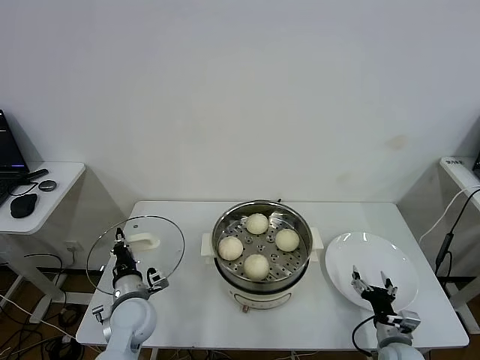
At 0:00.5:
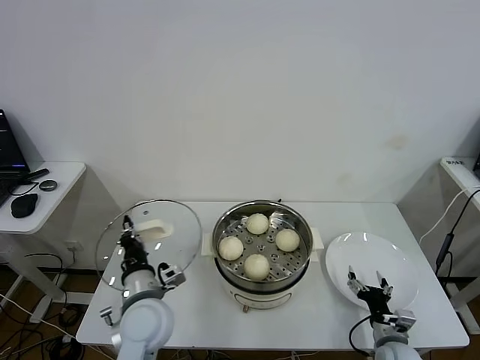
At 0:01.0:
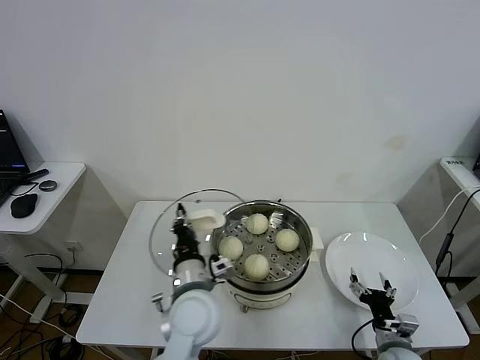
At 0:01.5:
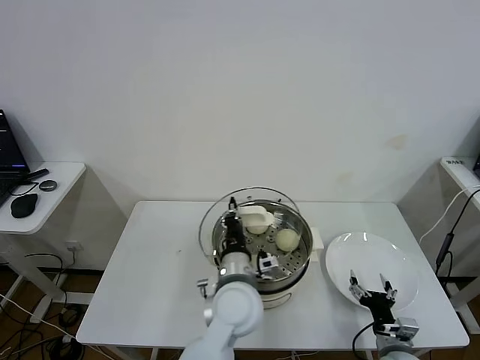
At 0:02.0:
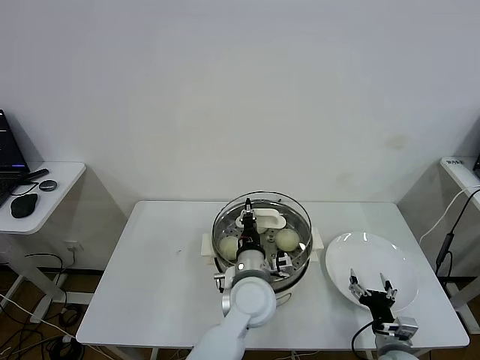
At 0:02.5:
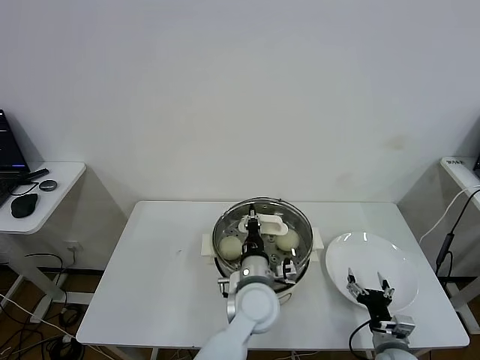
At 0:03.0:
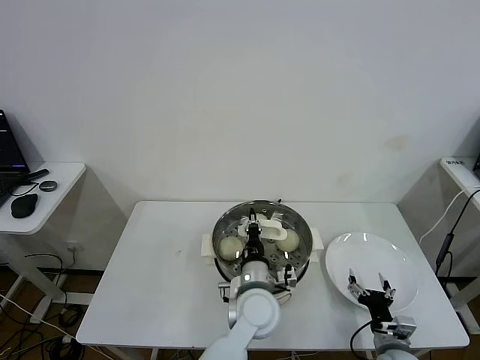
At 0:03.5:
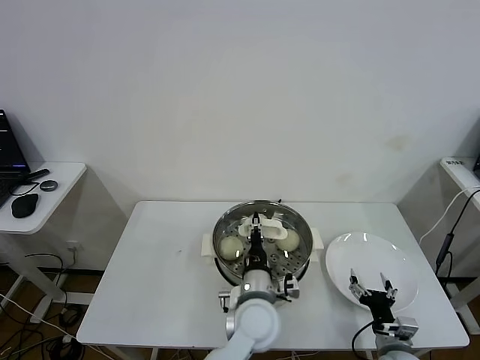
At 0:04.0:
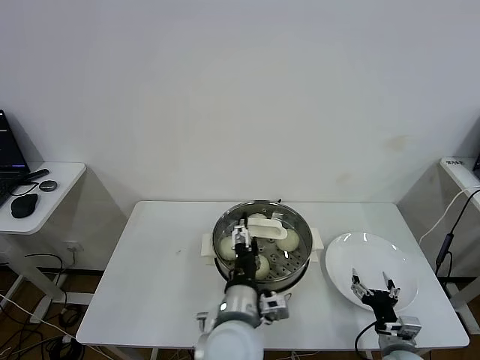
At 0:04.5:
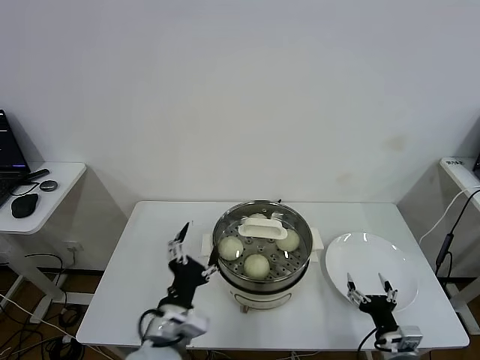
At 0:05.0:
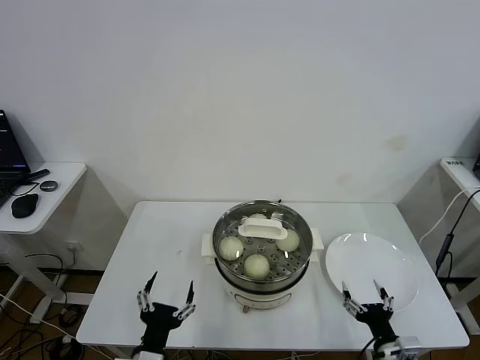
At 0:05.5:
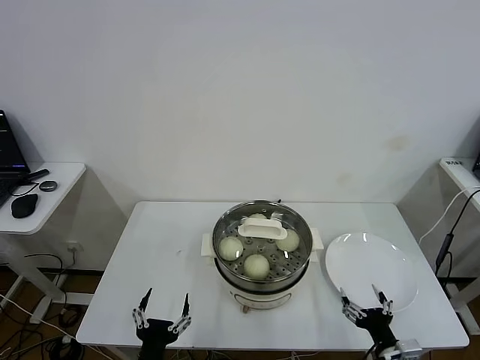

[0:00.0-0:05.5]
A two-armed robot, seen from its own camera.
Task of the whole recording: take steamed baozi put them in steamer.
Step, 0:00.0 to 0:04.0: Place the pot lid on the steamer with left gripper.
0:00.0 to 0:02.0: The left gripper is displaced to the right by approximately 25 cm.
0:02.0 to 0:03.5: The grippers move only a little.
0:03.5 to 0:05.5: The right gripper goes roughly 5 cm backward; the left gripper moves to the left and backward, approximately 30 cm, and opens its fingers.

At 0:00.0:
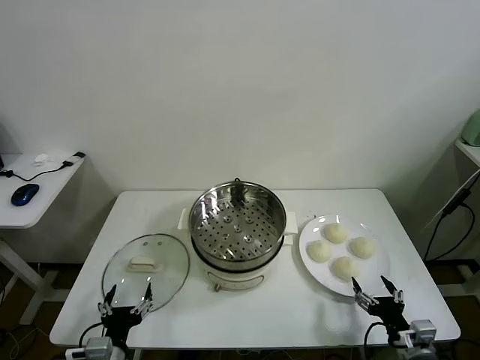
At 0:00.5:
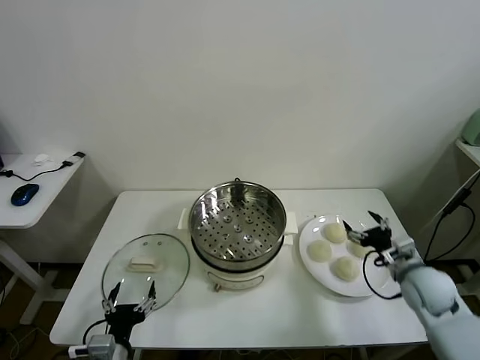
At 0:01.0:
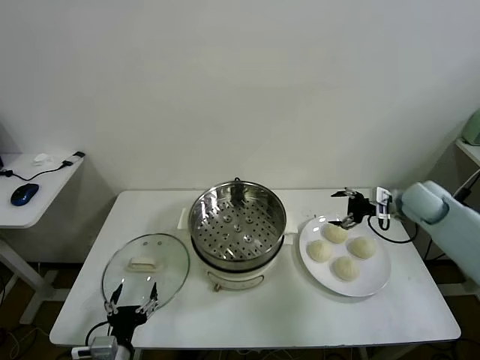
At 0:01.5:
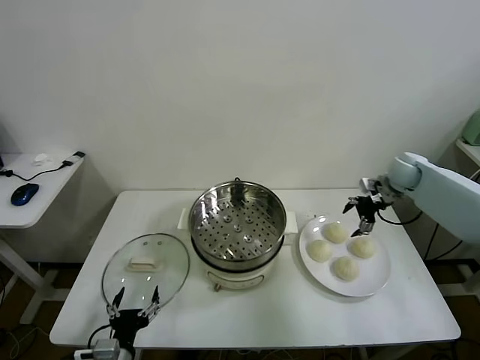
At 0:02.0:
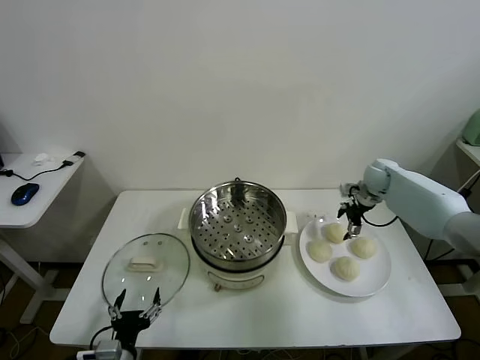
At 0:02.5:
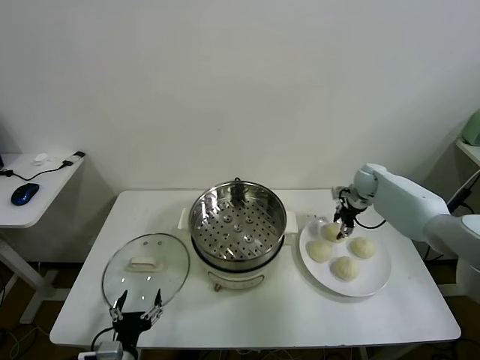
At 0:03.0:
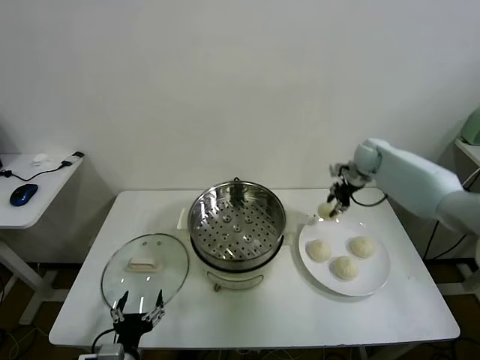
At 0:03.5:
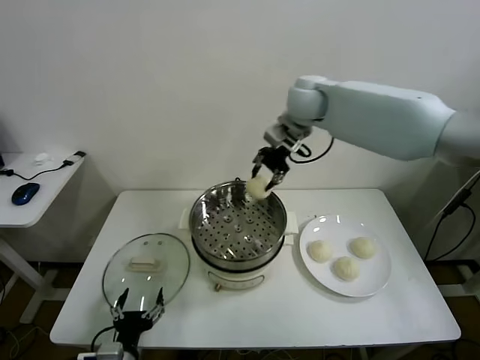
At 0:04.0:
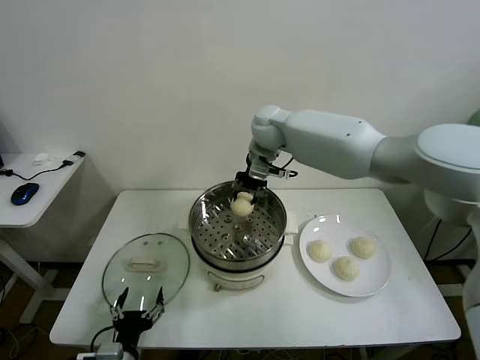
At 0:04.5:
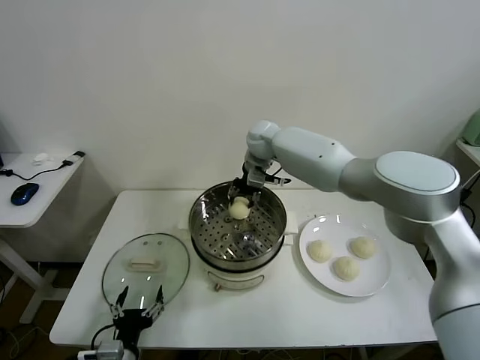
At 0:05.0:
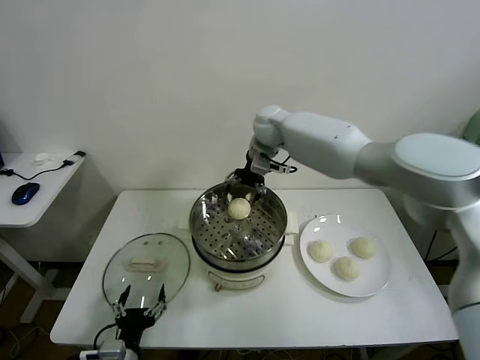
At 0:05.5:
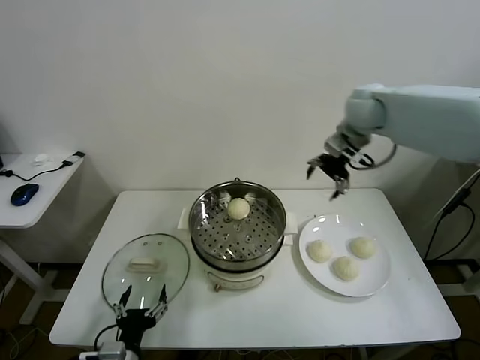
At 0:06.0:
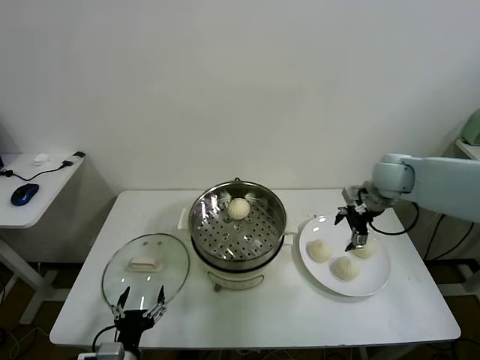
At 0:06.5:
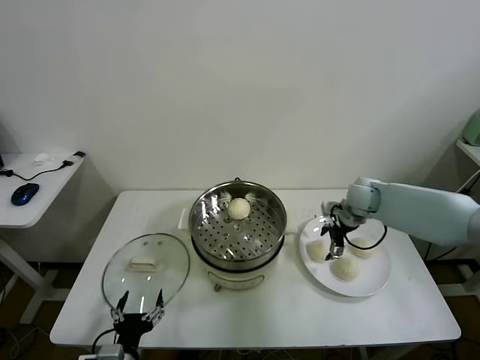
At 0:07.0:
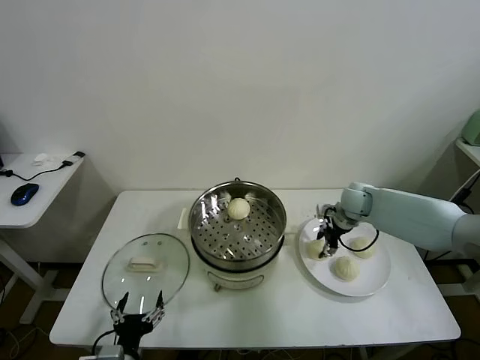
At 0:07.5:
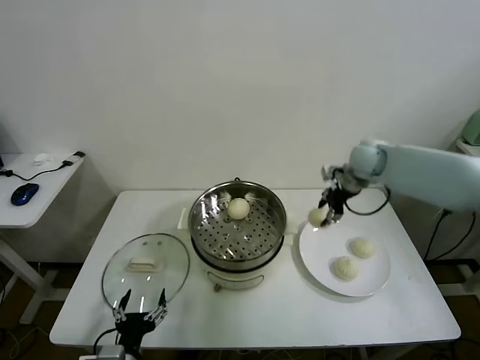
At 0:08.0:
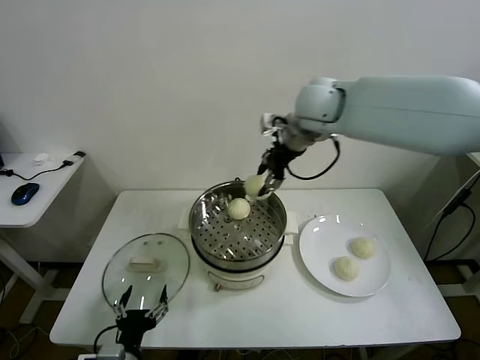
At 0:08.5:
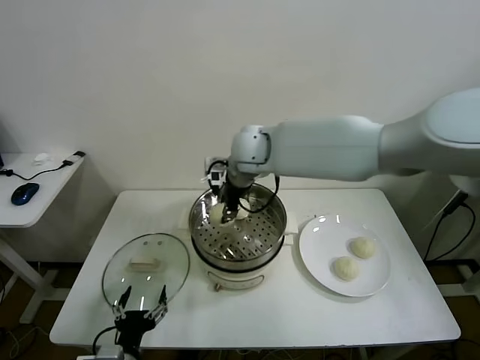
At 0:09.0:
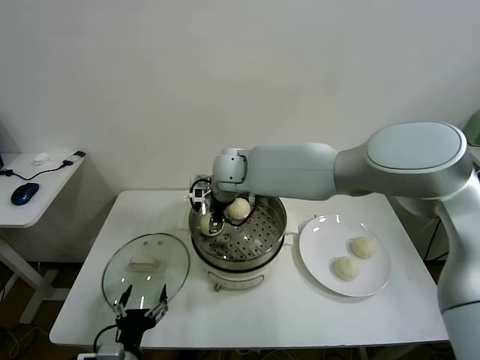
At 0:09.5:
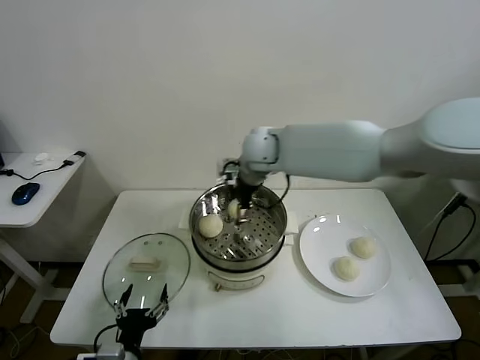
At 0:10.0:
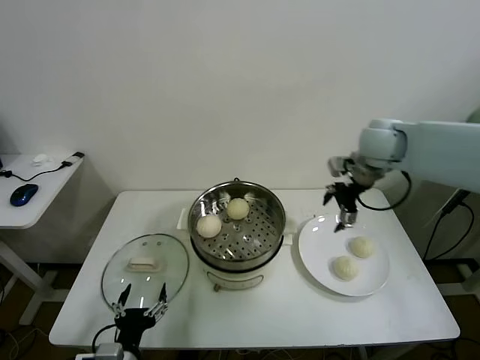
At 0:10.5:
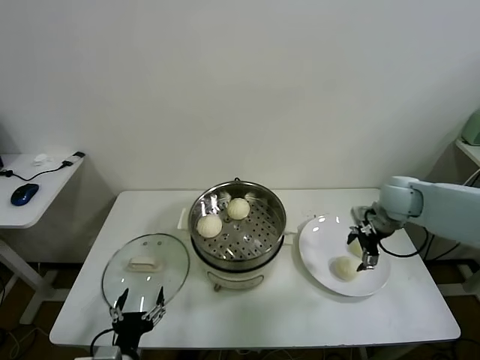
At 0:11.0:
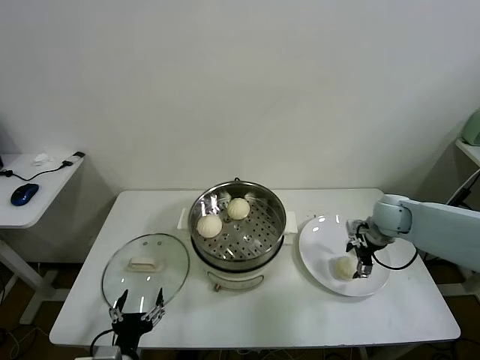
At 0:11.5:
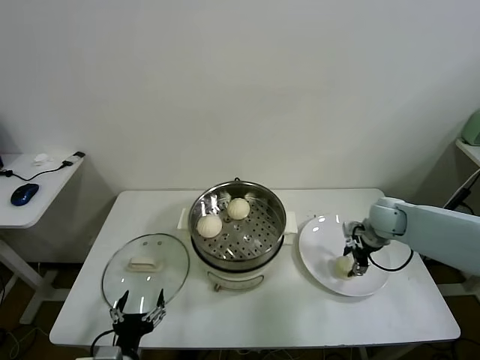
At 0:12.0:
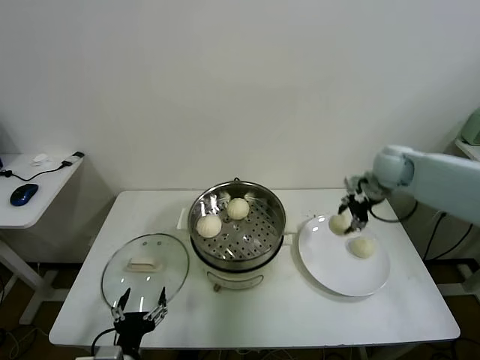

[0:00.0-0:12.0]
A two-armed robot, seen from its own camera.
Task of the whole recording: take steamed baozi put them in steamer.
Step, 0:00.0 to 0:02.5: Grasp the baozi in the plate with right gripper.
Step, 0:03.0 to 0:04.5: Place the baozi on the steamer with right gripper.
Step, 0:05.0 to 0:07.0: Grasp the baozi in the plate with right gripper.
Step, 0:07.5 to 0:09.0: Place the baozi on the steamer with right gripper.
Step, 0:09.5 to 0:11.5: Grasp the baozi in the plate with right gripper.
0:02.0 to 0:04.0: The right gripper travels to the left and upward by some 35 cm, and closes up.
0:04.0 to 0:06.0: The right gripper moves to the right, roughly 30 cm, and opens its fingers.
0:06.0 to 0:08.0: The right gripper goes approximately 30 cm to the left and upward, and closes its fingers.
0:08.0 to 0:10.0: The right gripper moves to the right and downward, roughly 20 cm, and opens its fingers.
0:10.0 to 0:12.0: The right gripper reaches approximately 20 cm downward, then returns, and closes its fingers.

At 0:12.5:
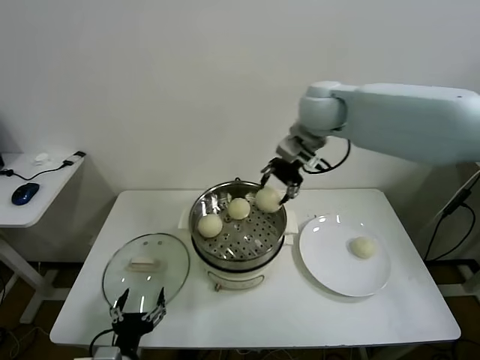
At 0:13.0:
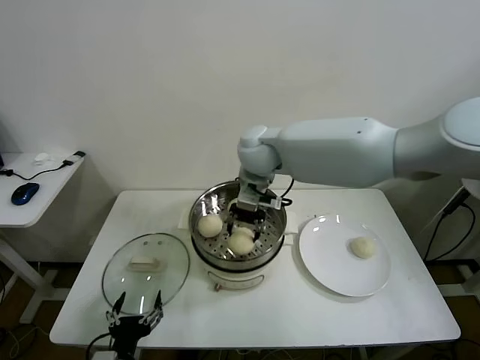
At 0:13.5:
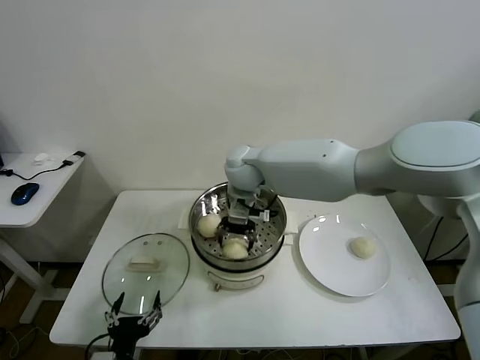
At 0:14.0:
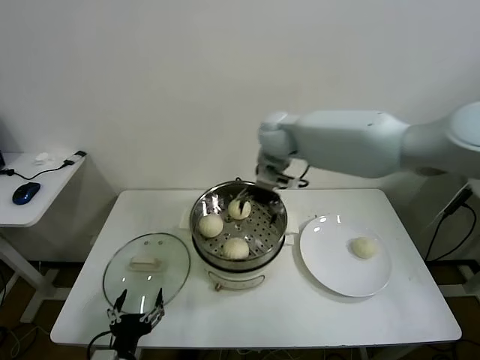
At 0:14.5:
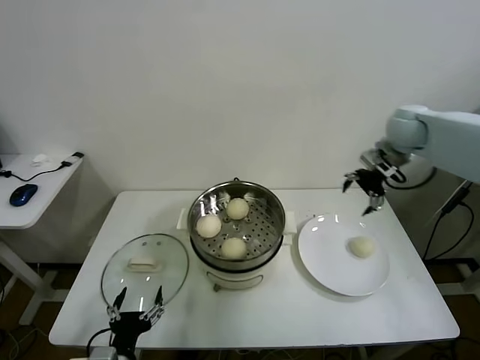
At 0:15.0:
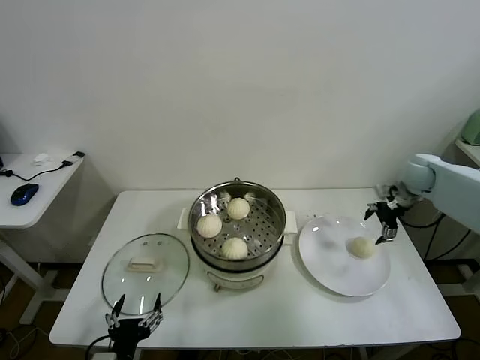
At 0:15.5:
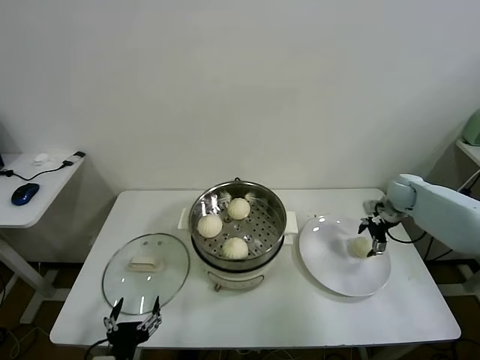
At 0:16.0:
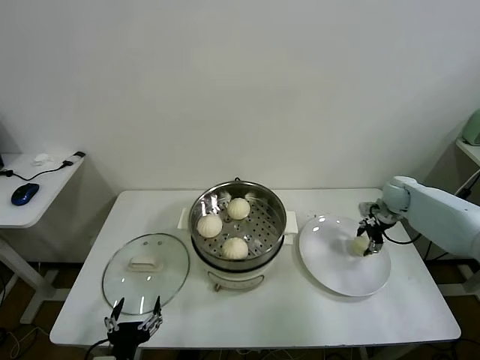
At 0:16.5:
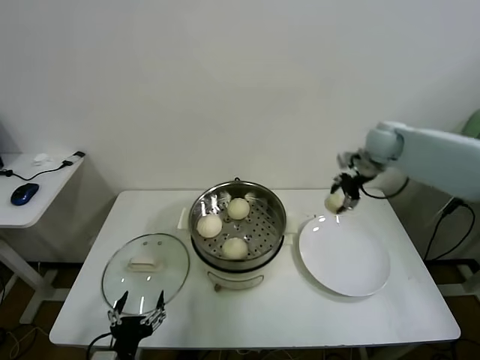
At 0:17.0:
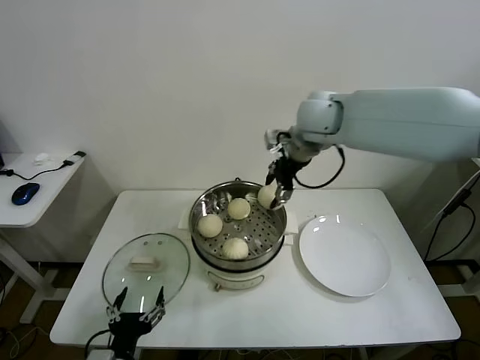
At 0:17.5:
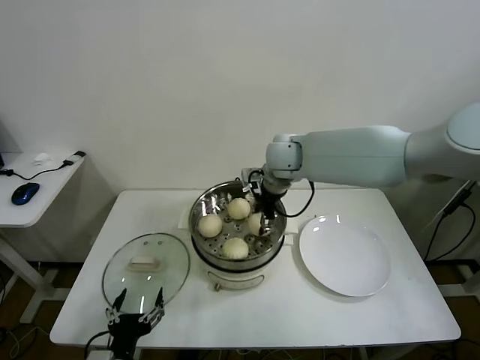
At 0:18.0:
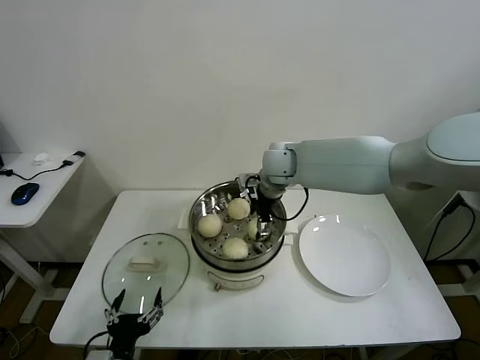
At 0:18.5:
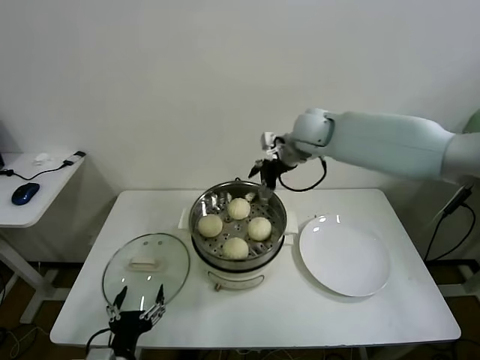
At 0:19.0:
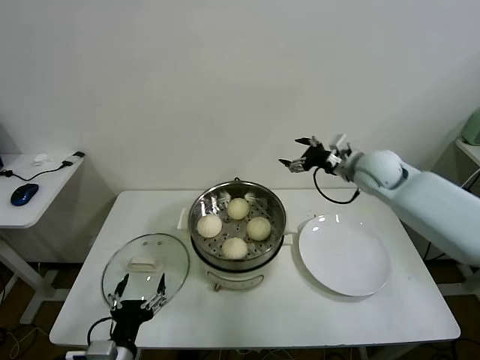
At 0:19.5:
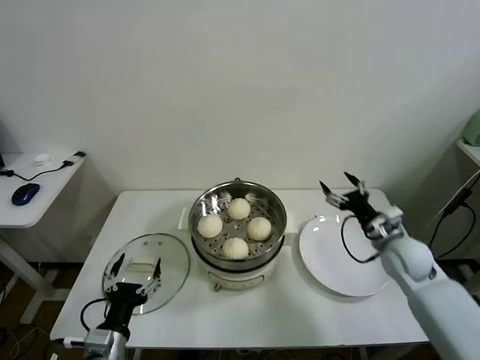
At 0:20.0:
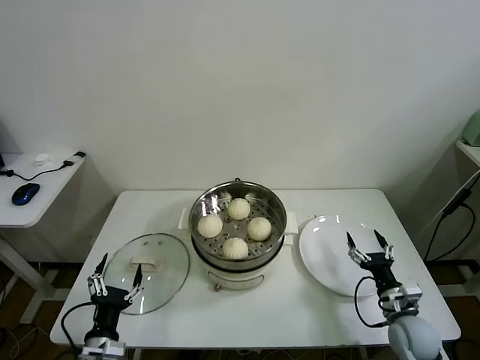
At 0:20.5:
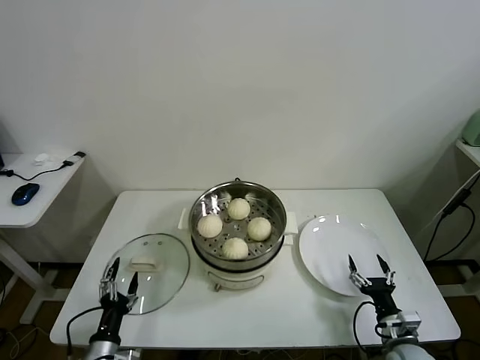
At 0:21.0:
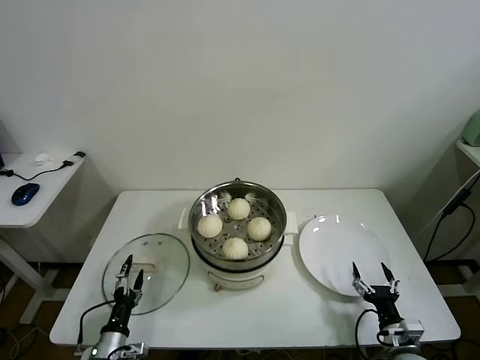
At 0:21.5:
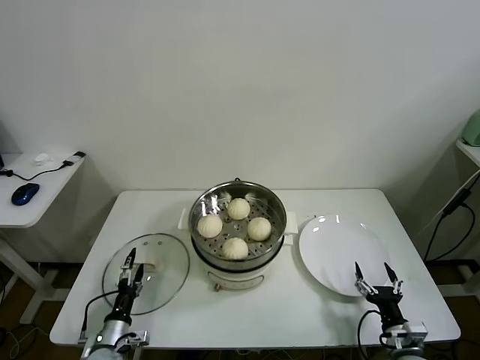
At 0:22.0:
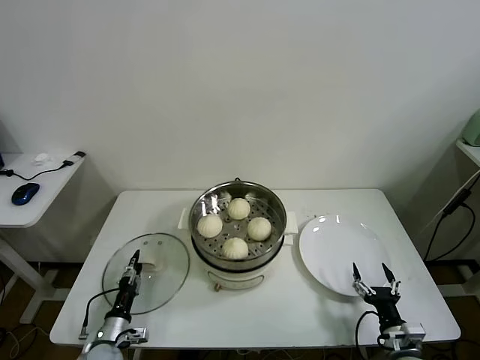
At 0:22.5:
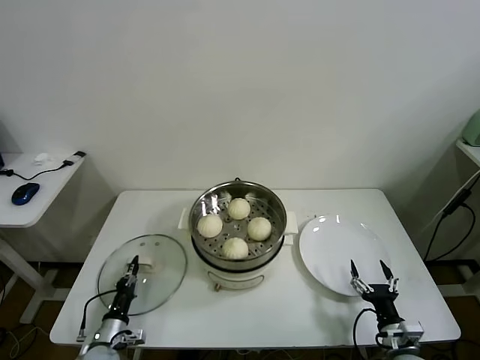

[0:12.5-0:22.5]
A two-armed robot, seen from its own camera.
Task of the whole recording: take steamed baozi put them in steamer.
Step, 0:14.0 to 0:16.0: Grasp the baozi in the plate with right gripper.
Step, 0:16.5 to 0:18.0: Place the baozi on the steamer with right gripper.
Step, 0:18.5 to 0:22.0: Grasp the pot lid with left gripper.
0:12.5 to 0:14.5: The right gripper heads to the right, covering about 25 cm, and opens.
0:14.5 to 0:16.5: The right gripper goes downward and returns, some 20 cm each way, and closes.
0:16.5 to 0:18.5: The right gripper heads to the left, covering roughly 15 cm, and opens its fingers.
0:18.5 to 0:20.5: The left gripper heads downward and to the left, covering about 15 cm, while the right gripper travels downward, backward and to the right by roughly 60 cm.
0:20.5 to 0:22.5: The left gripper is displaced downward and forward by approximately 10 cm, and closes up.
